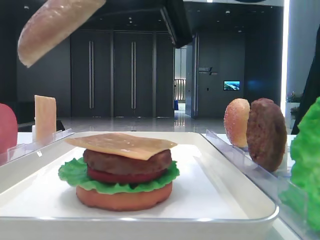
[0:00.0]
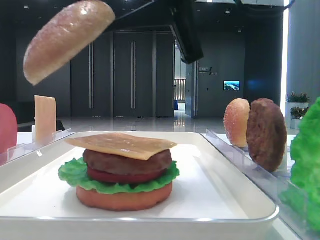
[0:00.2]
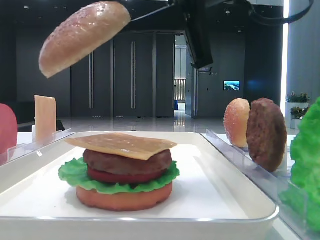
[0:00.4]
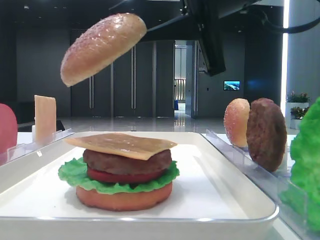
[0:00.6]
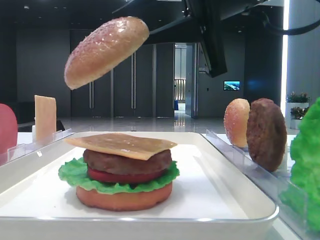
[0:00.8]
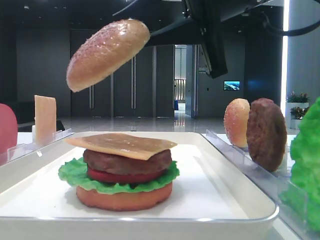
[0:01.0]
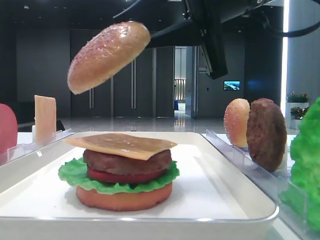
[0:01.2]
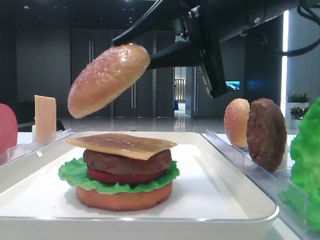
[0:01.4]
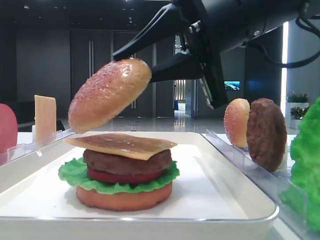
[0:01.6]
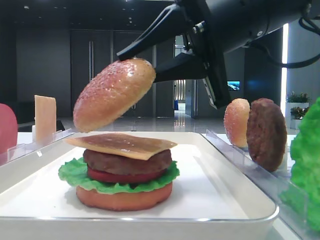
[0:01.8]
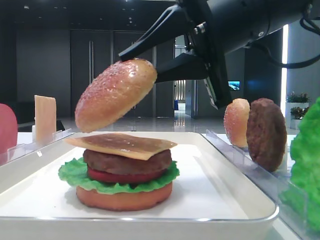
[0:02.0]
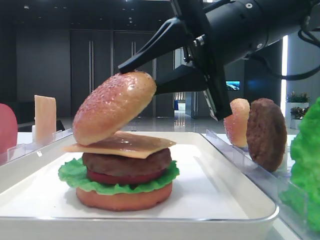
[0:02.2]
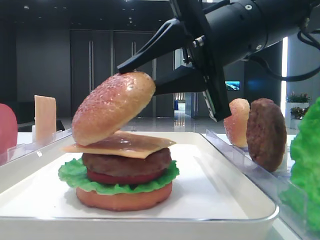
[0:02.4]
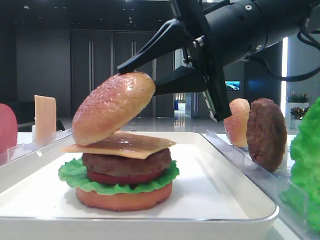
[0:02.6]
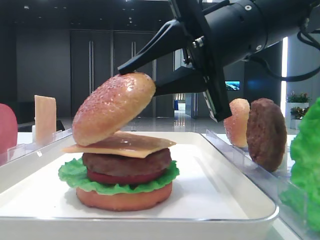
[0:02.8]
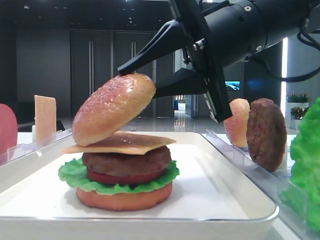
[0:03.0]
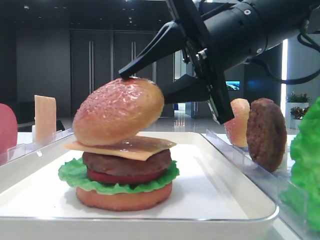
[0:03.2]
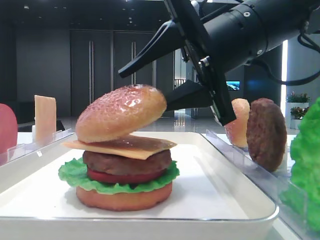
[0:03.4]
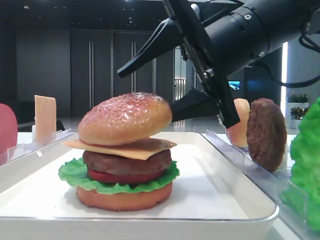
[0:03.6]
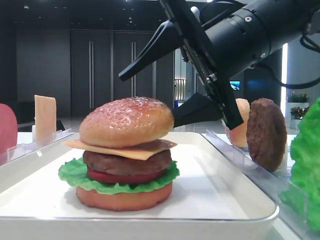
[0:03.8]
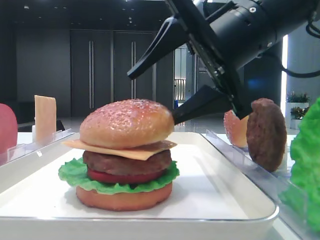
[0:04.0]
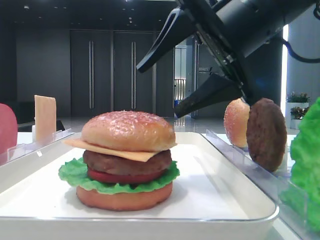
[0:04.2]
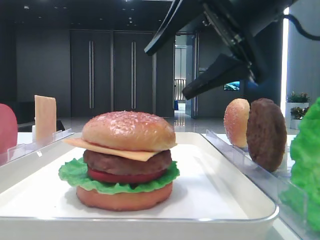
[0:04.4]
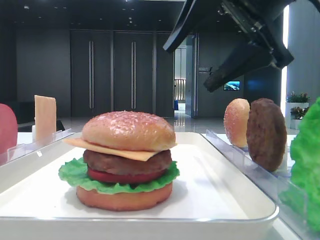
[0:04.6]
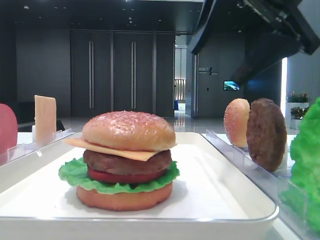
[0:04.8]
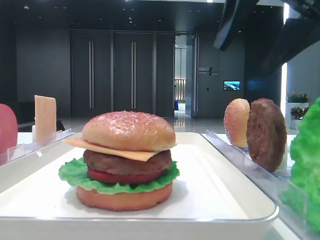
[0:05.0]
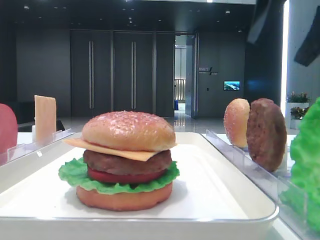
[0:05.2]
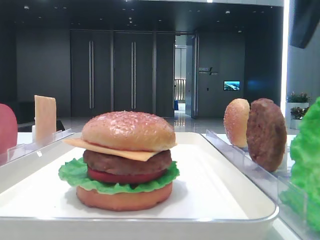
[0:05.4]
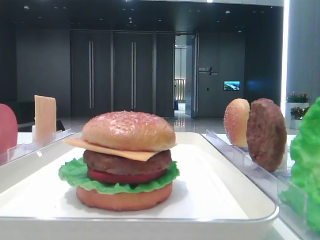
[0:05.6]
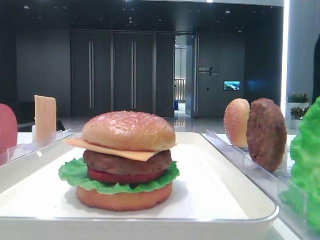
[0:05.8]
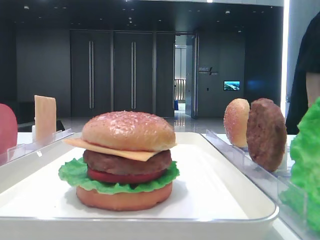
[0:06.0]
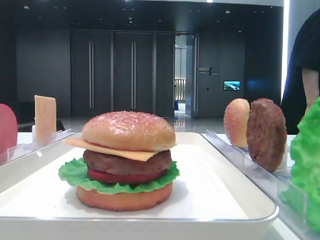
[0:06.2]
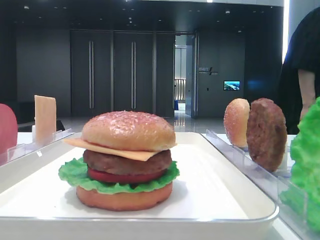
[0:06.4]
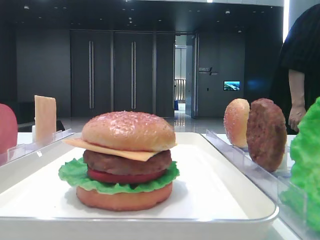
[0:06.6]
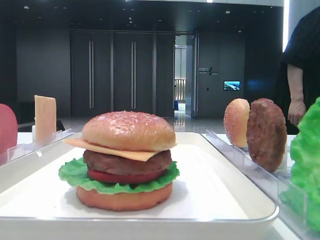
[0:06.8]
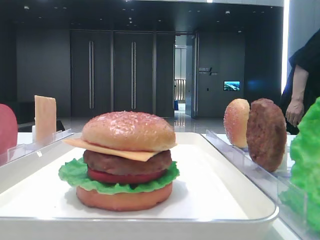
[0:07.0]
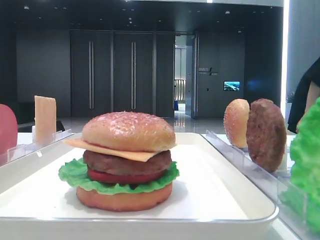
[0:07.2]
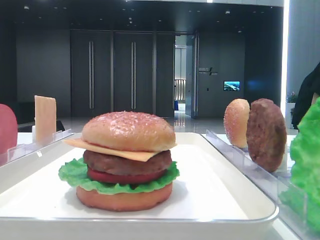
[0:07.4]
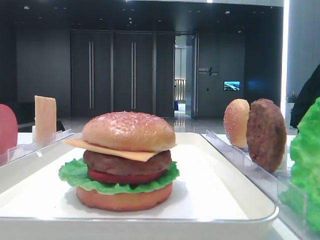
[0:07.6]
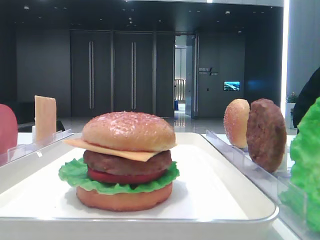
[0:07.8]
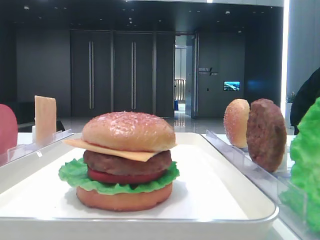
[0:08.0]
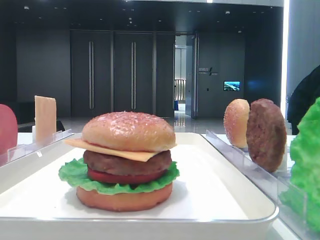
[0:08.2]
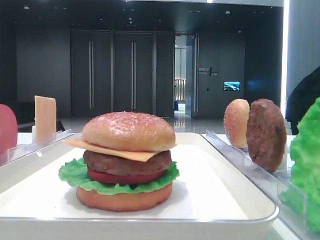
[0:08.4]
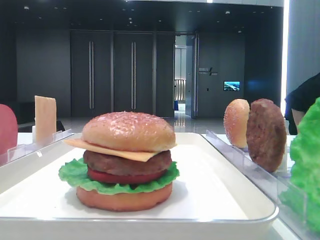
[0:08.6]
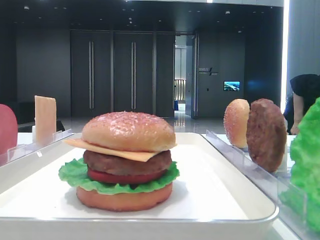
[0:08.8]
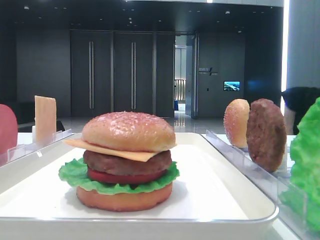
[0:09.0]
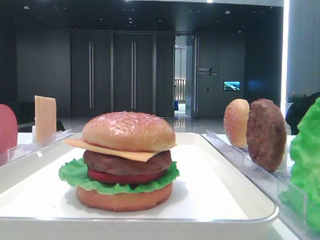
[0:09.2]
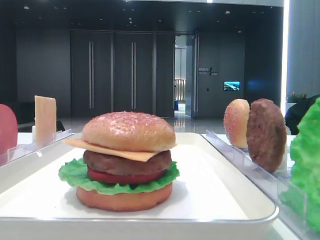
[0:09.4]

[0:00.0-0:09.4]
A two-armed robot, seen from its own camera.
Step, 0:00.0 to 0:04.0: Place the top bread slice on the cheese with the right hand.
0:00.0 to 0:01.6: The right gripper moves downward, about 5 cm.
0:01.6 to 0:03.2: The grippers stay close to where they were, moving slightly.
0:03.2 to 0:04.8: The right gripper heads upward, covering some 5 cm, and opens up.
0:04.8 to 0:06.2: The right gripper travels to the right by roughly 15 cm.
0:06.2 to 0:07.8: The right gripper is displaced backward by about 25 cm.
